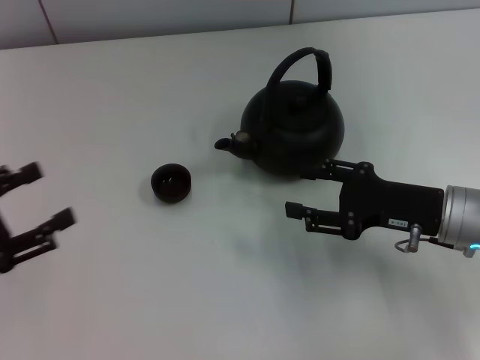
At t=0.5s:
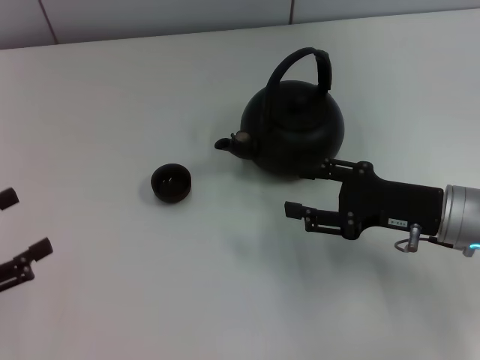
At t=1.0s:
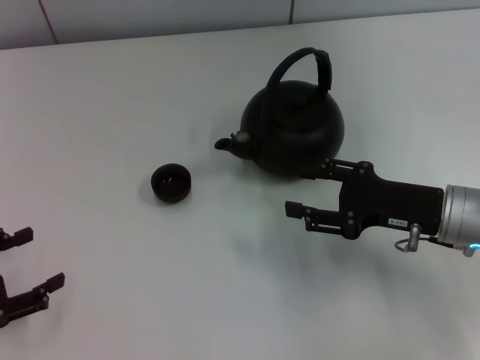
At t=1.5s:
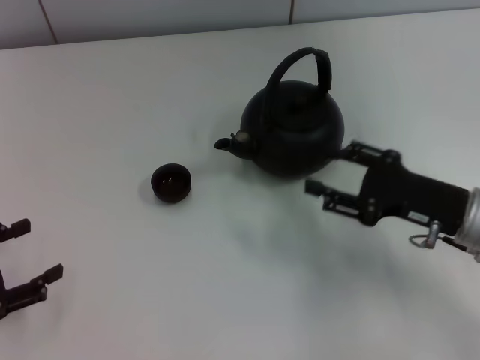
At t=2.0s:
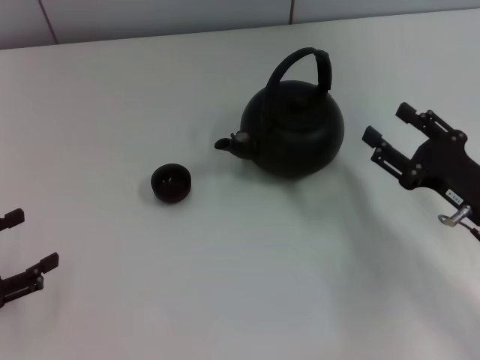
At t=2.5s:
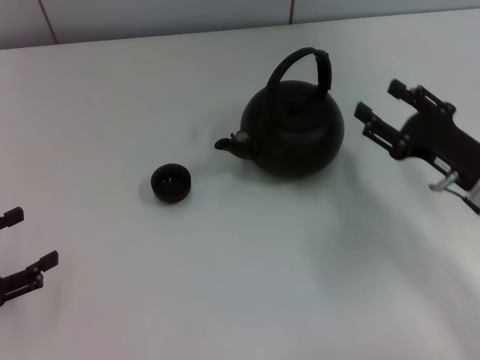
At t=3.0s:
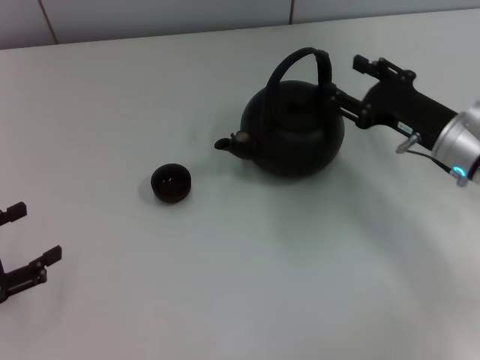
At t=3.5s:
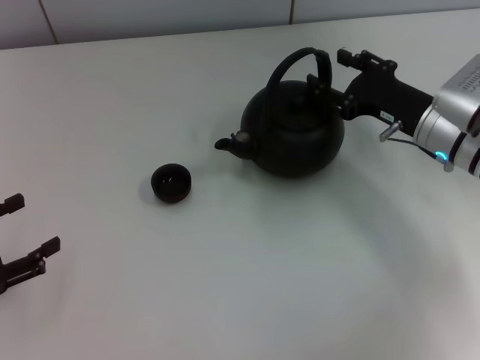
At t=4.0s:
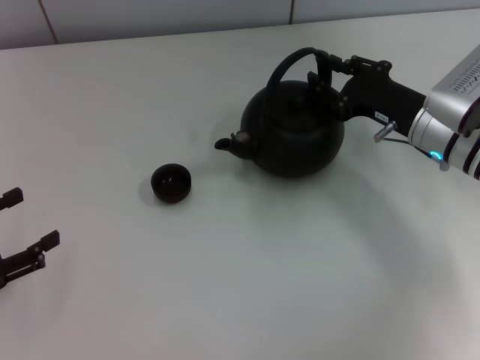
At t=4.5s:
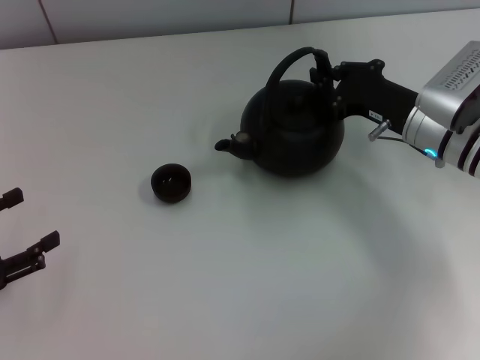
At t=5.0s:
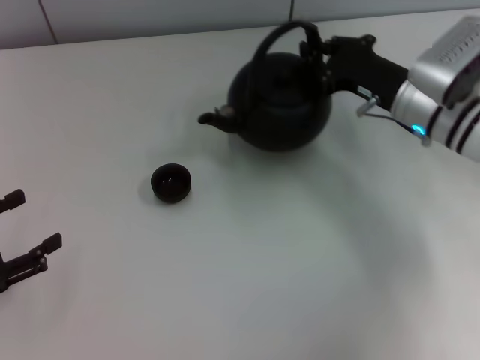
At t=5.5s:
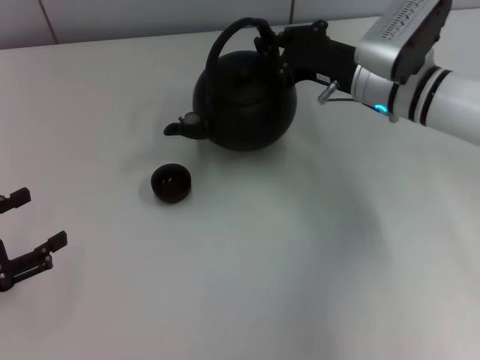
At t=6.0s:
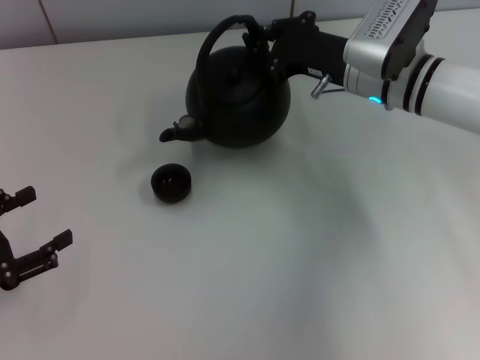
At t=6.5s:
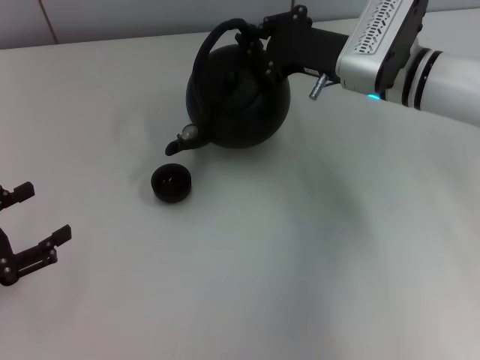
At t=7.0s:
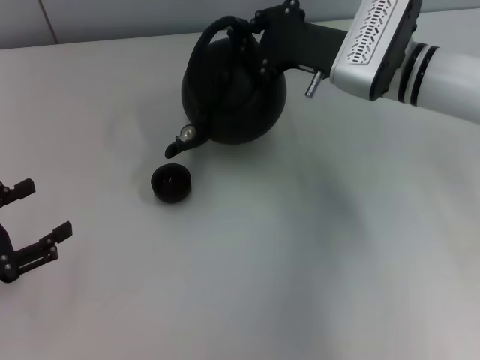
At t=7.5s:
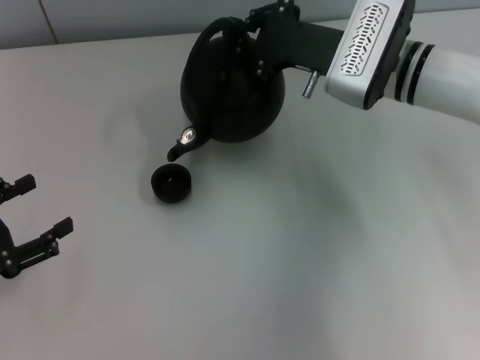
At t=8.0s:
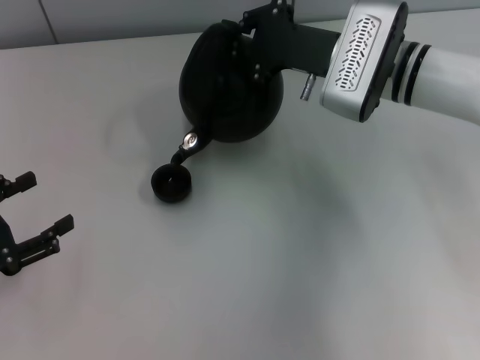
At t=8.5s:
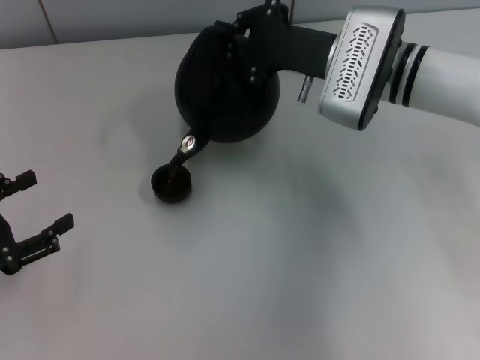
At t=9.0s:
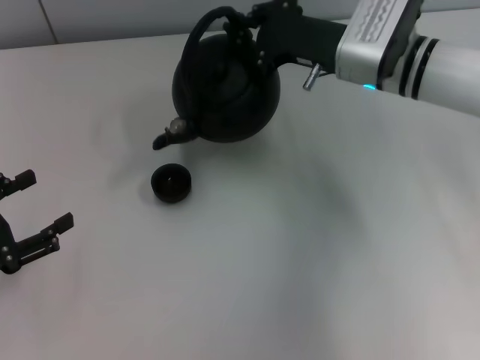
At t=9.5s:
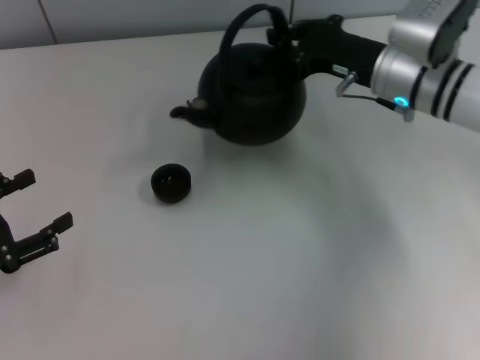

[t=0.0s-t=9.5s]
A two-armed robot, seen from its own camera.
Task of the whole recording: Grasp the handle of the teapot with one hand and pour tea into the teacup.
Step, t=0.0s to t=4.5s: Pick up the teapot with the right gripper.
t=0.0s to t=2.0s: The right gripper changes place by about 5 cm.
t=2.0s to t=4.0s: The right gripper goes approximately 10 cm forward.
t=4.0s to t=5.5s: The right gripper goes approximately 5 cm to the left, and closes its fingers.

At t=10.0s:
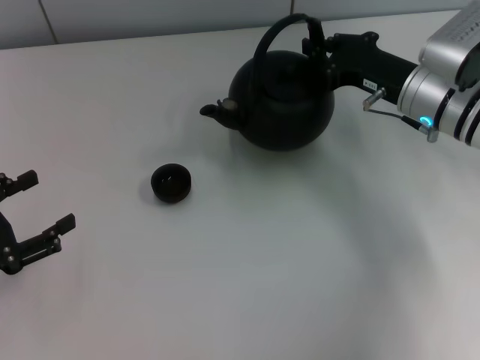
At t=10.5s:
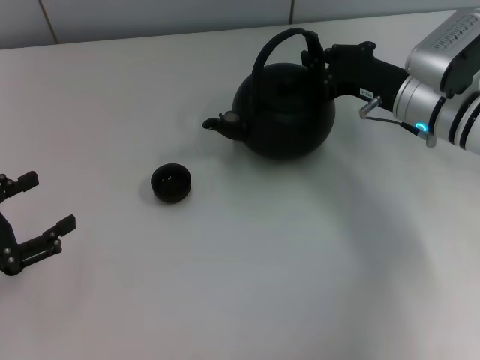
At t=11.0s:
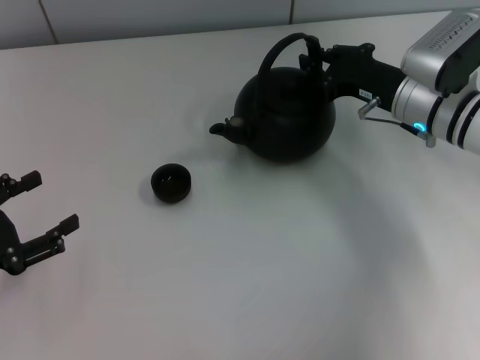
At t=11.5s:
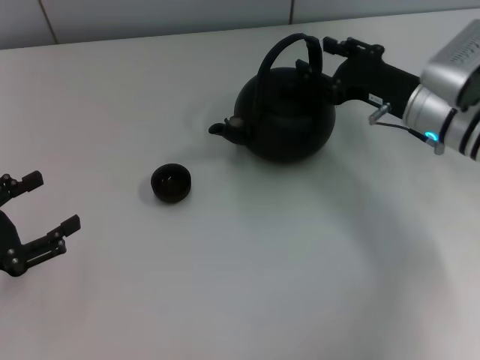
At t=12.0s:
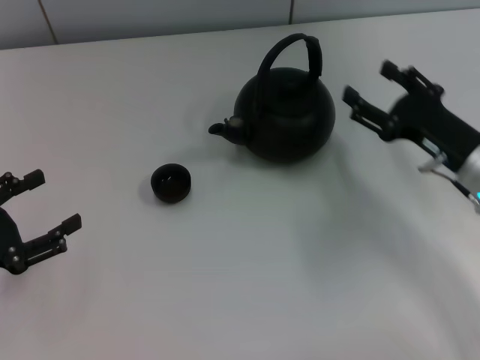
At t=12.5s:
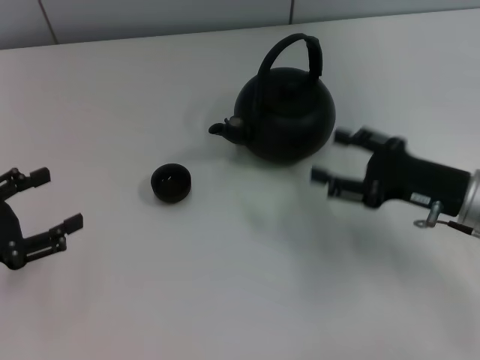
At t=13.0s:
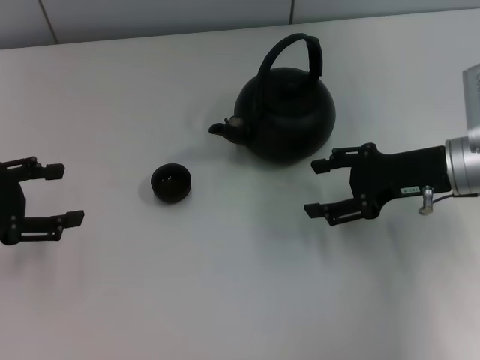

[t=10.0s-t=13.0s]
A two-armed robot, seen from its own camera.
Task of the whole recording: Grasp the handle of the teapot with one hand and pour tea into the teacup.
Step, t=10.0s to t=11.5s: Put down the teapot with the right gripper.
t=10.0s to t=11.5s: The right gripper opens up.
t=11.5s to t=13.0s: The right gripper opens; the left gripper goes approximately 10 cm forward.
